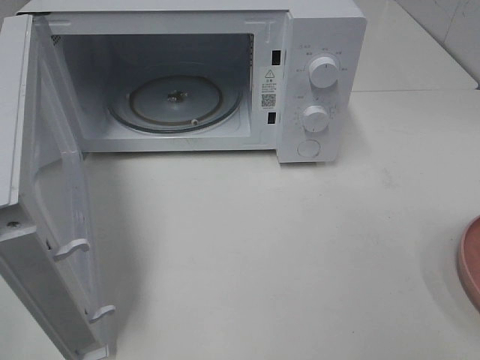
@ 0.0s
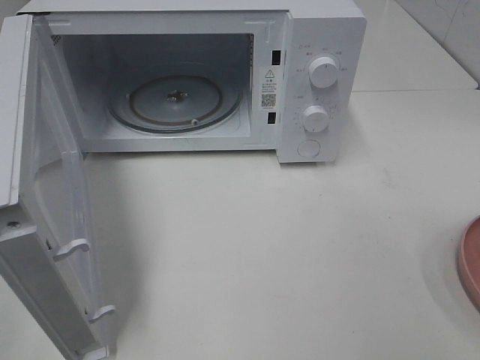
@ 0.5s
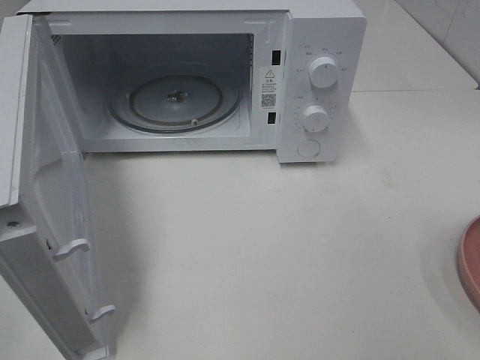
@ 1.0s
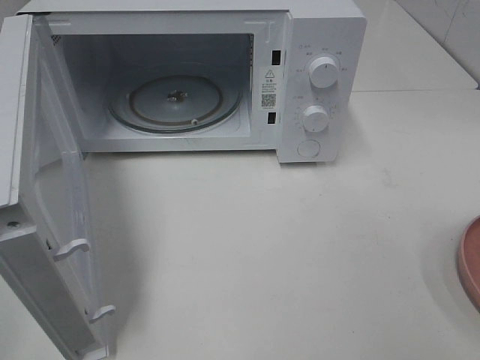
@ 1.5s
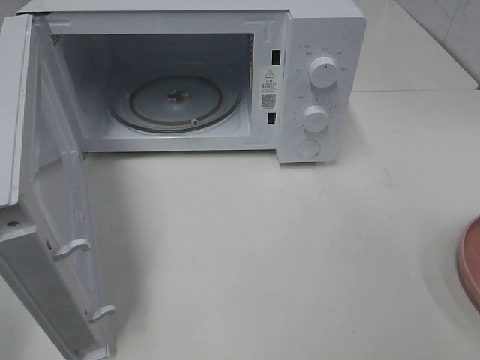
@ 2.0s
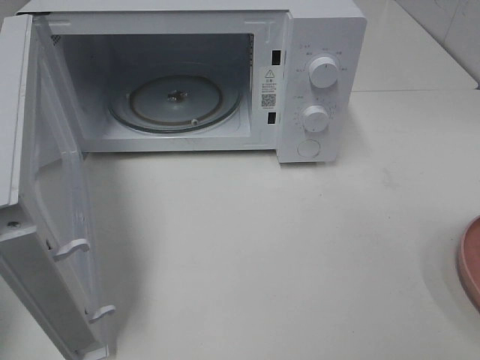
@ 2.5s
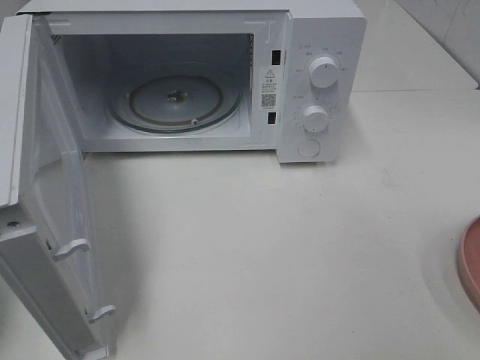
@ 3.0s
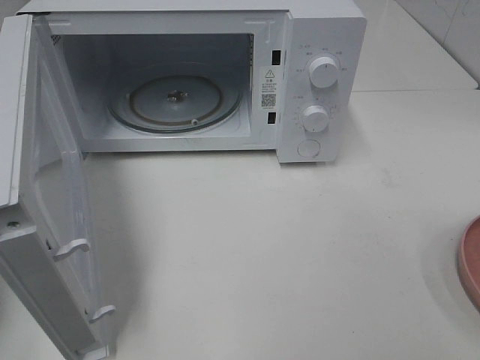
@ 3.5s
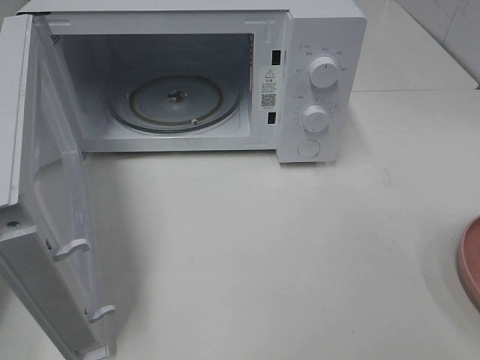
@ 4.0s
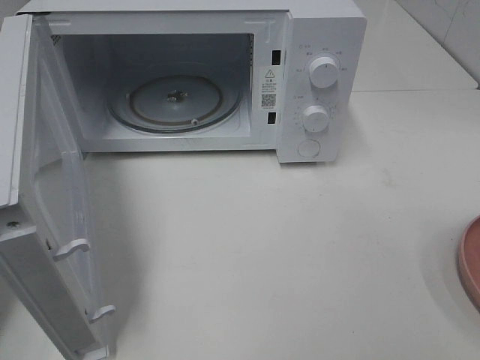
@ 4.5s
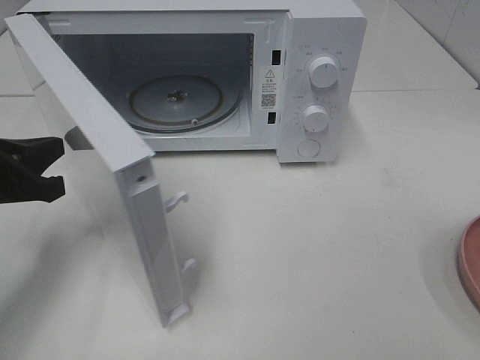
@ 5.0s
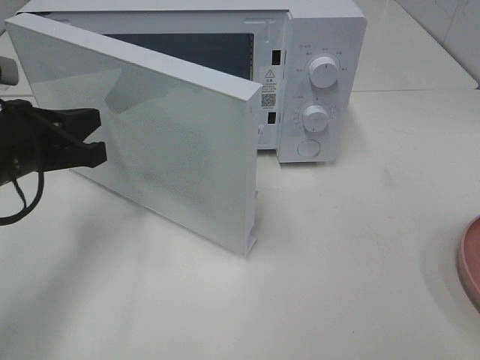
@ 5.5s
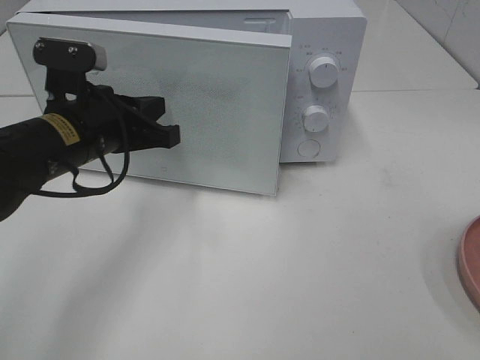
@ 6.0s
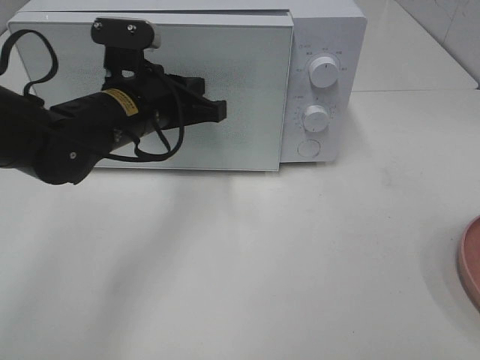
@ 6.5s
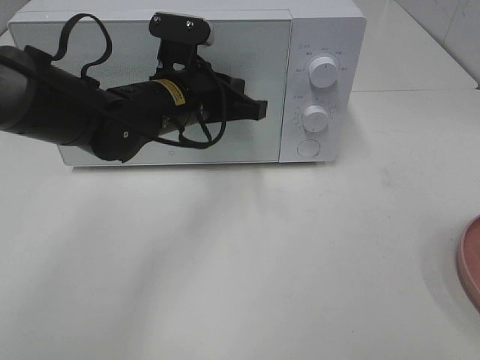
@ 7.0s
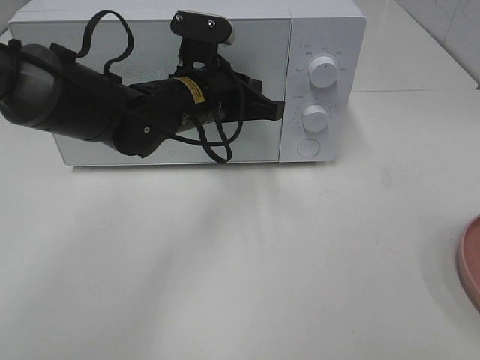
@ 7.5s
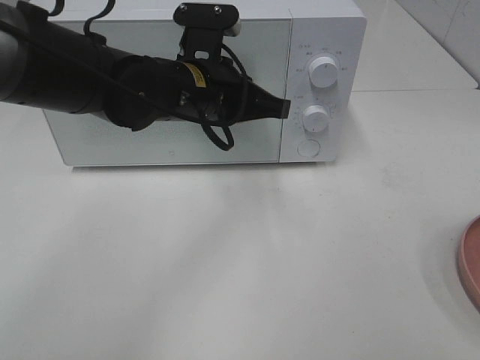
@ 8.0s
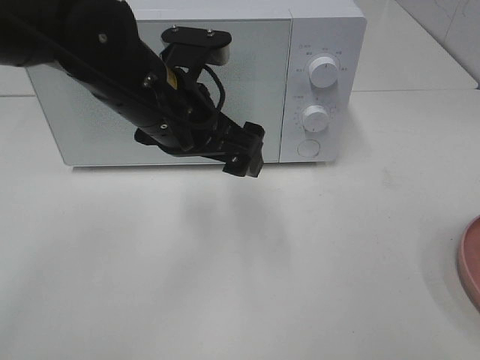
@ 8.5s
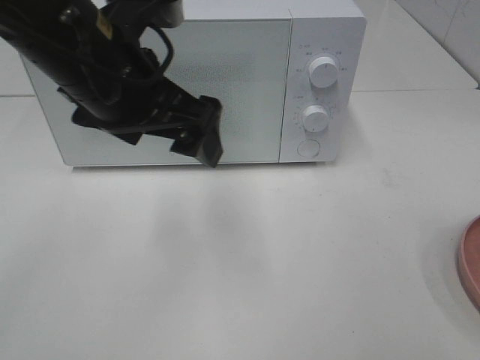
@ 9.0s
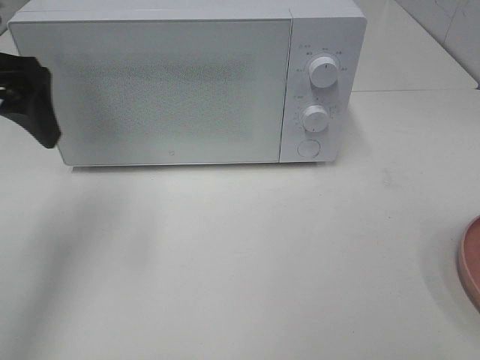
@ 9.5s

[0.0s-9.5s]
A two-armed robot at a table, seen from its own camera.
Task of the whole recording: Heat the burger.
Step, 0.0s to 7.5s: Left hand: close the microwave door.
4.0s to 5.5s: The left gripper heads to the right and forward, covering approximately 15 cm.
5.5s to 7.5s: The left gripper travels to the right and forward by about 20 cm.
7.5s to 9.5s: The left gripper moves to the left and upward, approximately 25 cm, and opens its fingers.

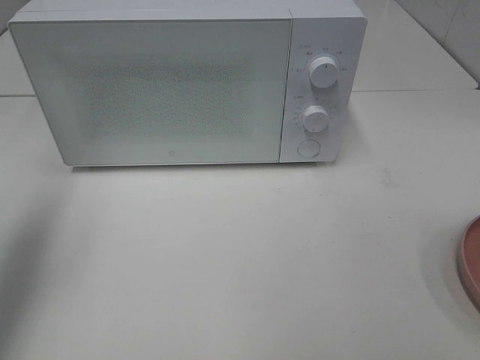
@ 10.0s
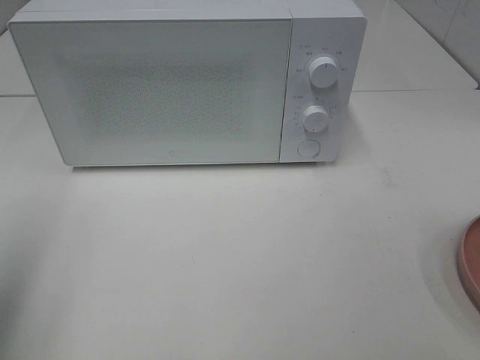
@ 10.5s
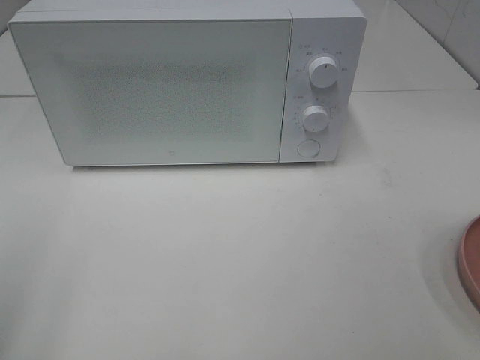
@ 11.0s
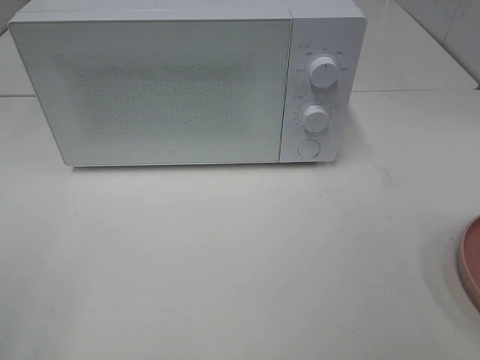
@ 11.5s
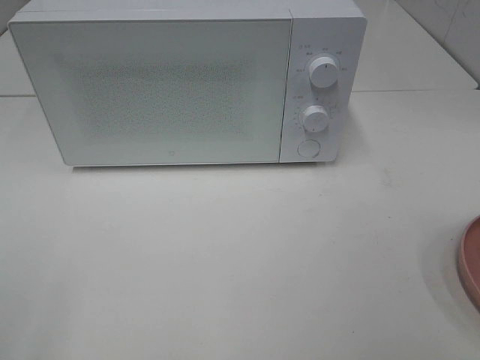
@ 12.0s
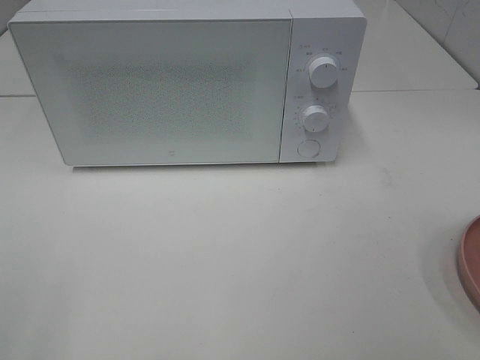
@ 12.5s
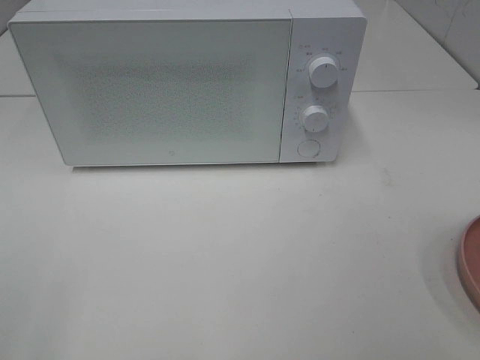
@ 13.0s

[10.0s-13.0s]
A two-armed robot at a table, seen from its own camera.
Task of the whole recording: Heat the burger.
10.0s to 11.5s: The left gripper heads backward, covering roughly 20 cm.

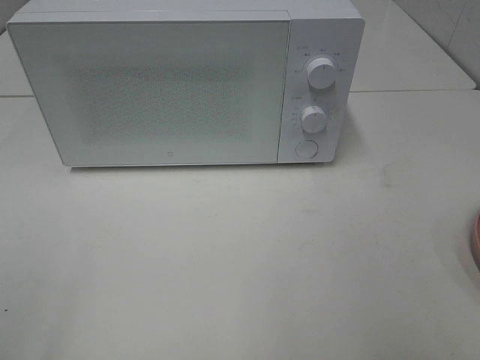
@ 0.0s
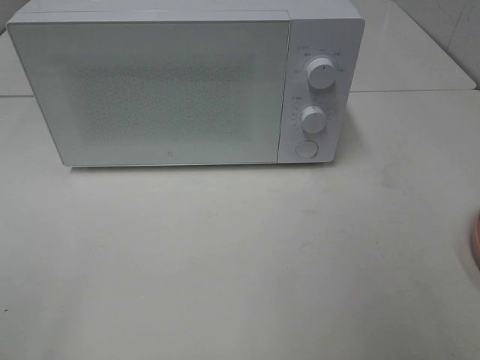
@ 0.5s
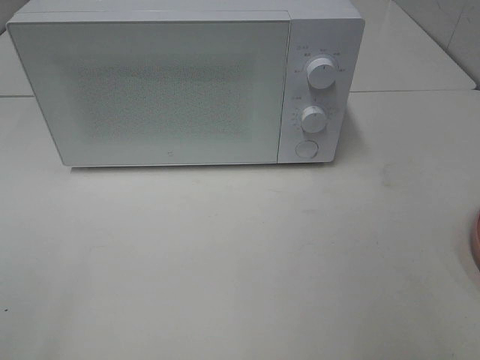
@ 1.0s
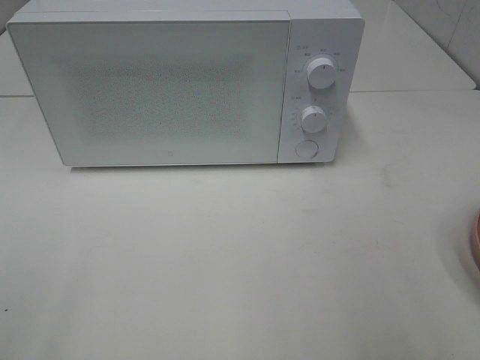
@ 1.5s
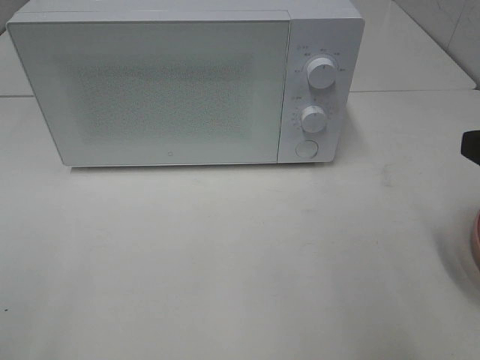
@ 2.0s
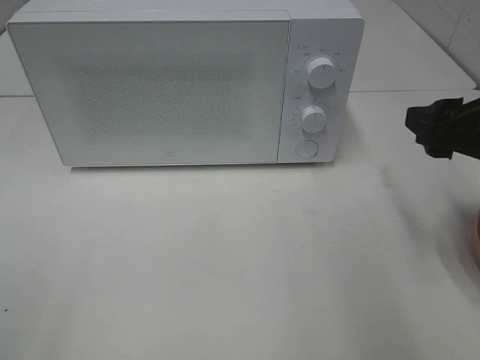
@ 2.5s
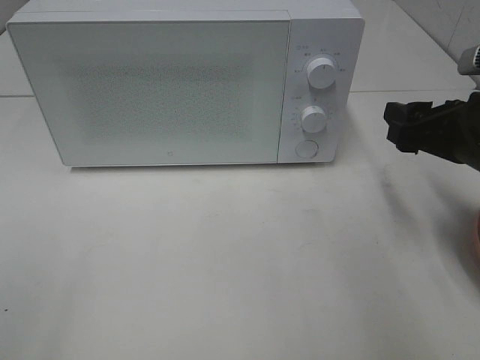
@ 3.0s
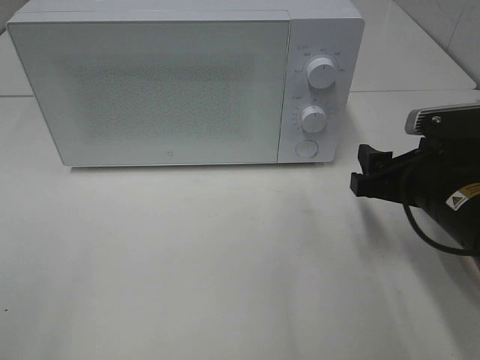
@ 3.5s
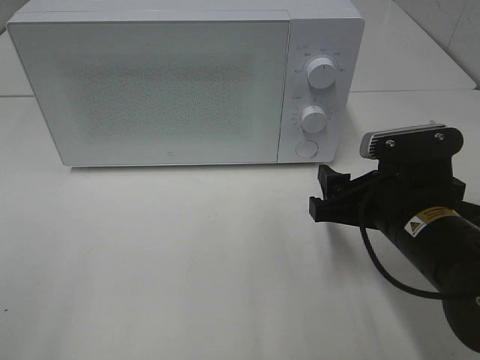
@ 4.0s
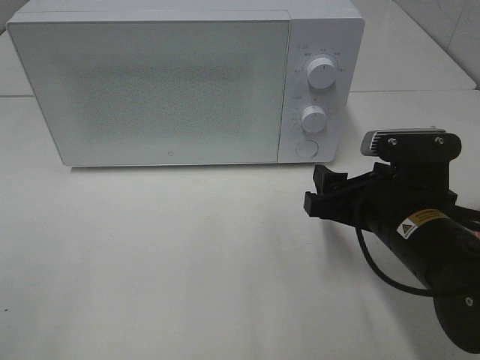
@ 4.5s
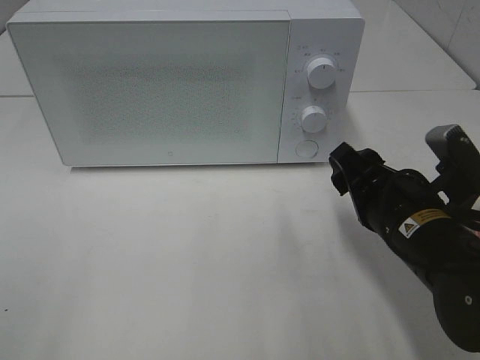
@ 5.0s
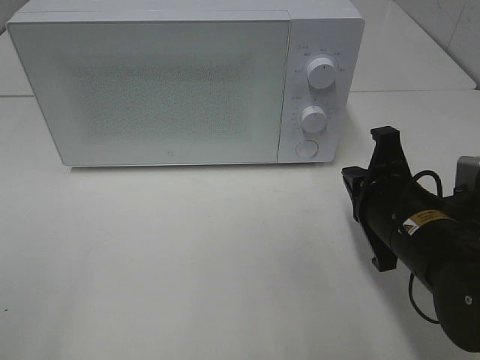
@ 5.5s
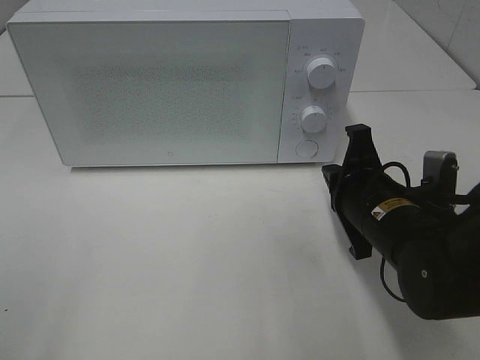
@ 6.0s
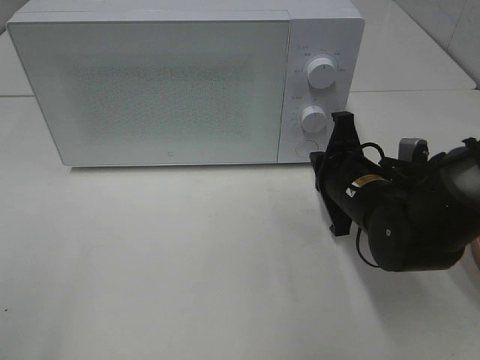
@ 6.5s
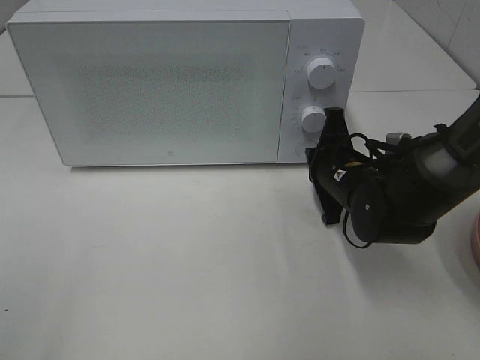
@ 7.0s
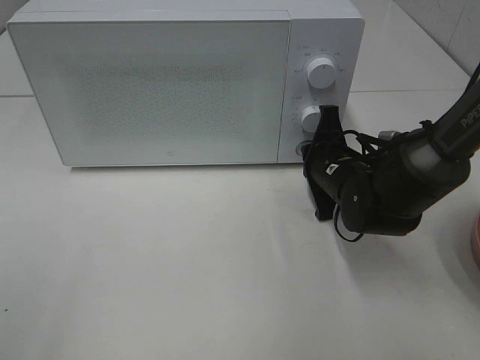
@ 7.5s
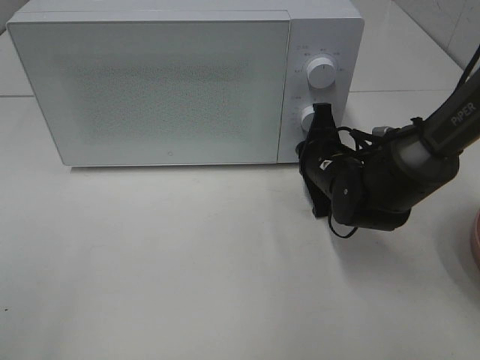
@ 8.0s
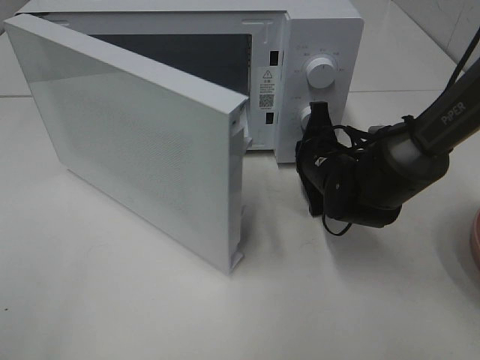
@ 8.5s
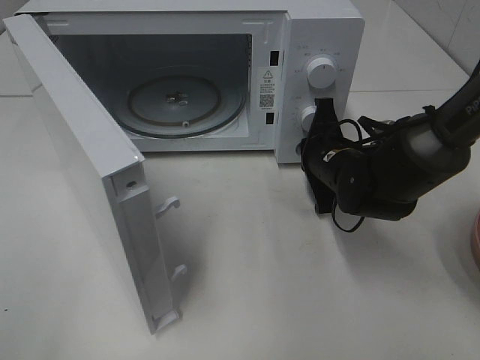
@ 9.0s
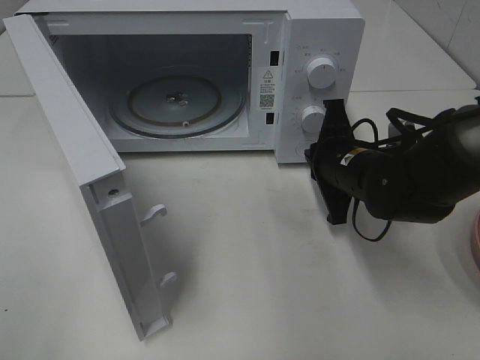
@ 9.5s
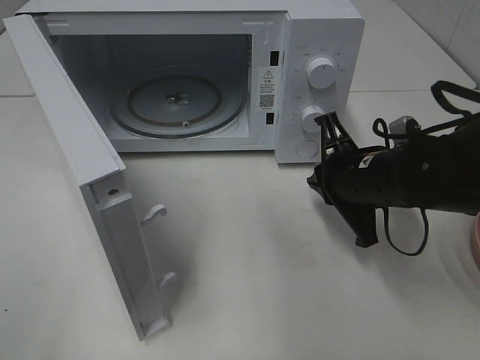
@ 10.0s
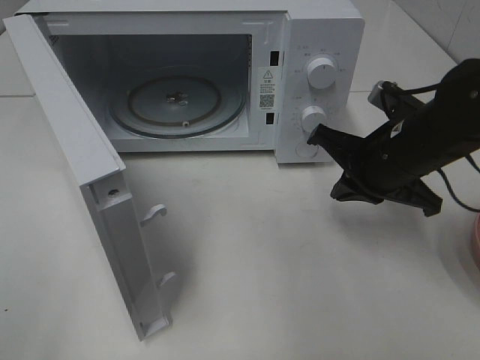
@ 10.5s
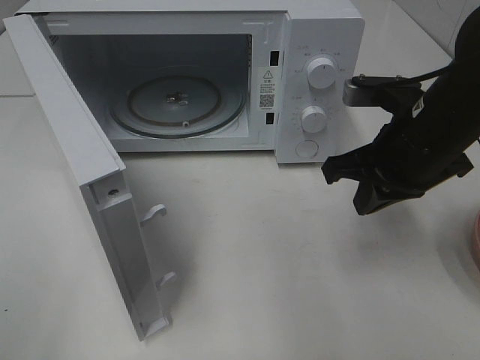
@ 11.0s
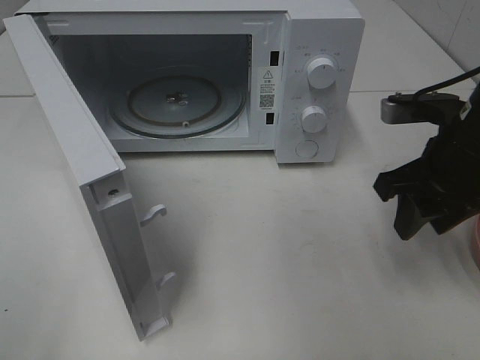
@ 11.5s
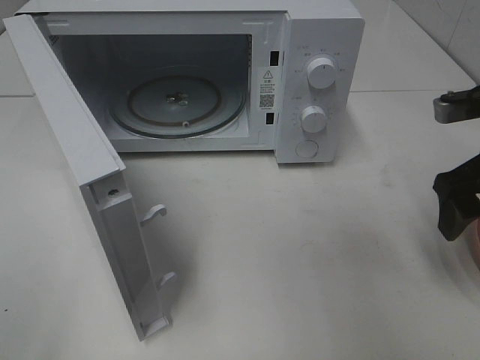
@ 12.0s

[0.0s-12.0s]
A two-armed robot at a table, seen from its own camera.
Task of the whole recording: Heat the burger.
Step, 0.0s to 9.5s: Right hand: press the switch.
0.0s to 2.0s: The right gripper travels forward by roughly 15 cm.
2.0s to 4.0s: The right gripper moves downward, to the left and forward, approximately 15 cm.
4.0s to 6.0s: The right gripper closes.
6.0s to 8.0s: The right gripper shifts approximately 10 cm forward.
8.0s to 10.0s: The right gripper shifts about 5 cm backward.
10.0s to 12.0s: The right gripper is displaced to the right and upward by roughly 15 cm, and opens up.

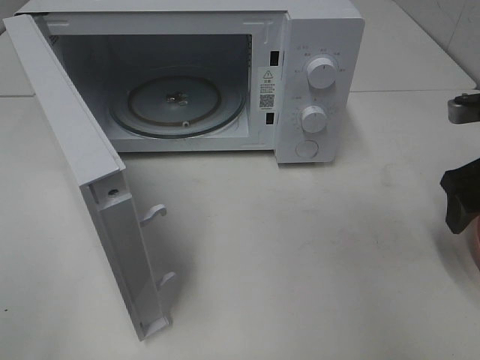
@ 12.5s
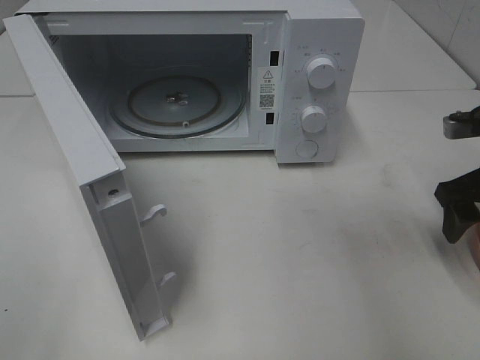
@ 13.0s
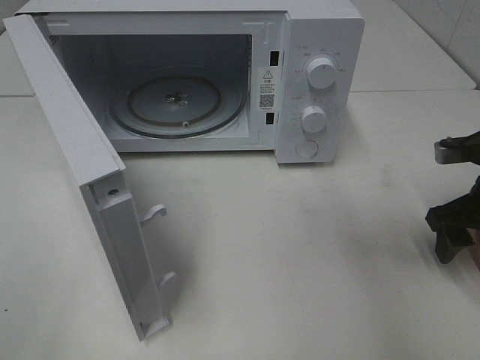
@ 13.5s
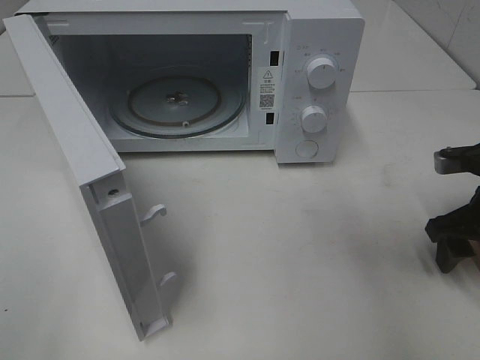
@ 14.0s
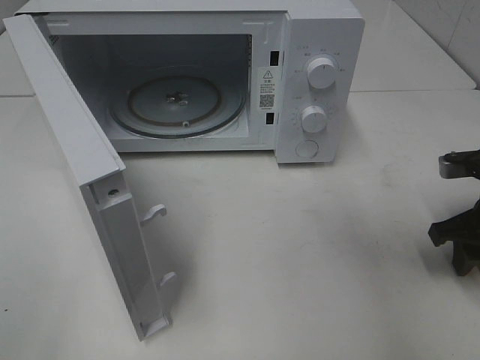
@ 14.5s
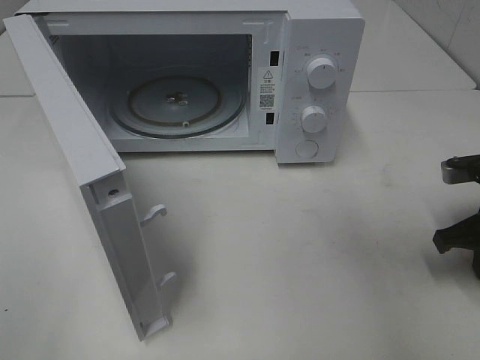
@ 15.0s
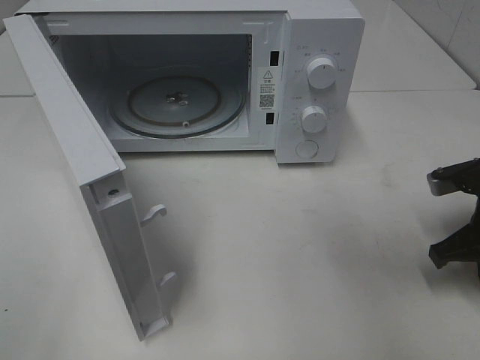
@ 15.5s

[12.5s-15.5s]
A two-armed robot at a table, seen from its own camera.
Task of the whole recording: Heat the burger.
12.5s to 14.0s: The right gripper goes about 5 cm downward.
14.0s to 15.5s: The right gripper closes its fingers.
